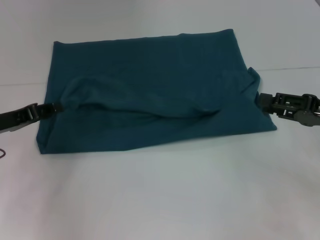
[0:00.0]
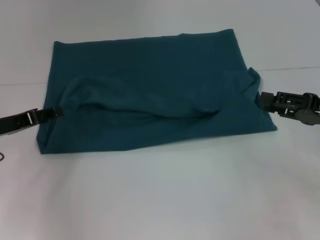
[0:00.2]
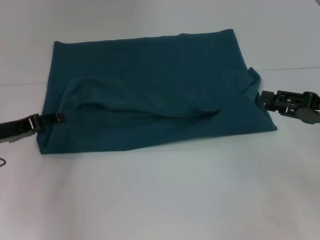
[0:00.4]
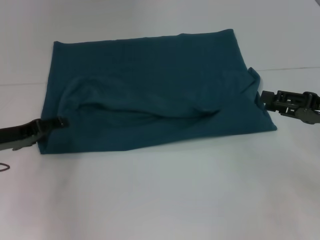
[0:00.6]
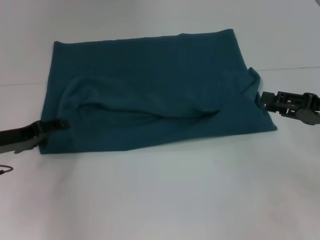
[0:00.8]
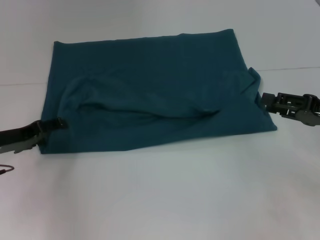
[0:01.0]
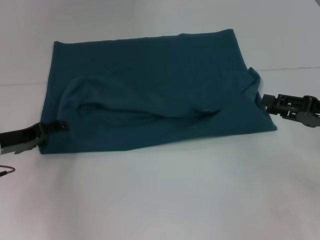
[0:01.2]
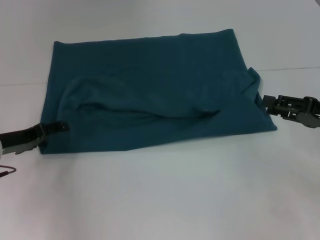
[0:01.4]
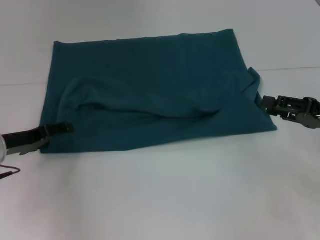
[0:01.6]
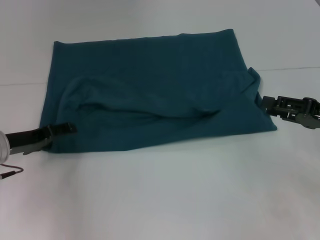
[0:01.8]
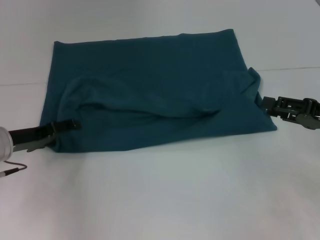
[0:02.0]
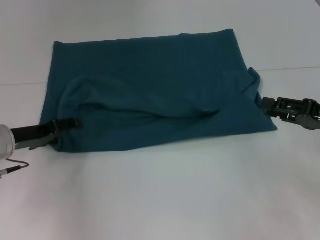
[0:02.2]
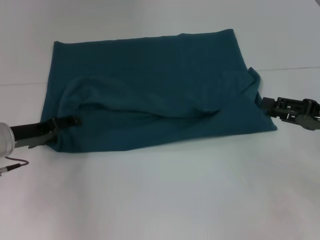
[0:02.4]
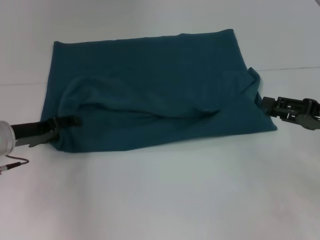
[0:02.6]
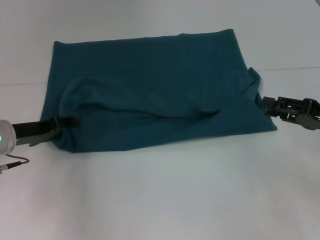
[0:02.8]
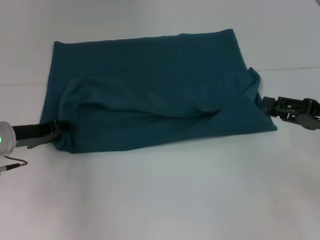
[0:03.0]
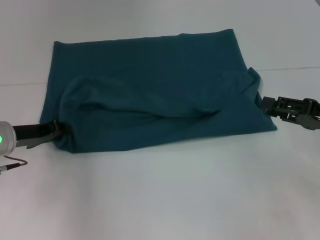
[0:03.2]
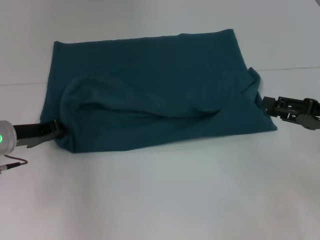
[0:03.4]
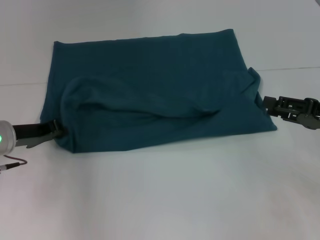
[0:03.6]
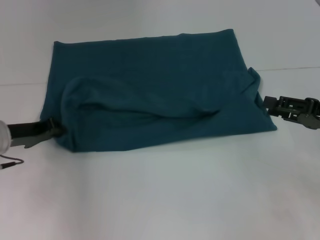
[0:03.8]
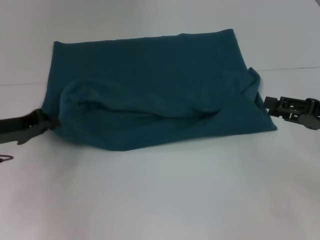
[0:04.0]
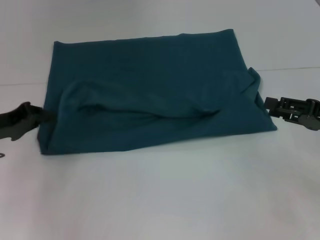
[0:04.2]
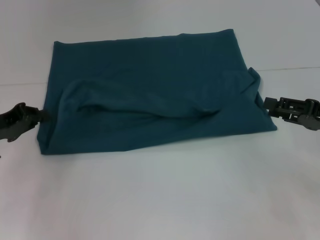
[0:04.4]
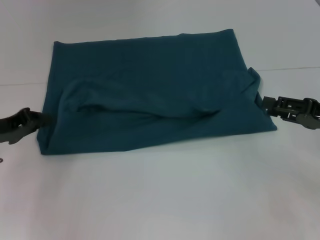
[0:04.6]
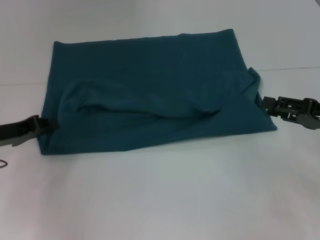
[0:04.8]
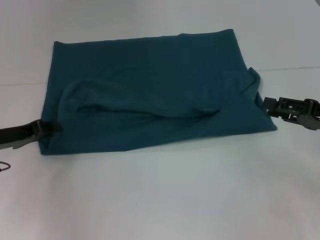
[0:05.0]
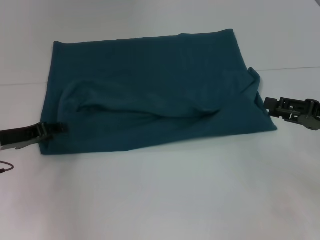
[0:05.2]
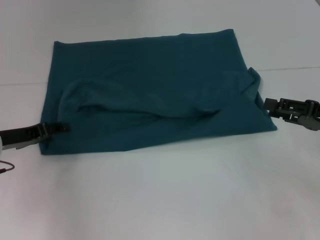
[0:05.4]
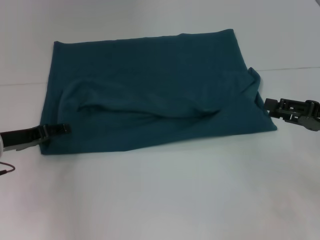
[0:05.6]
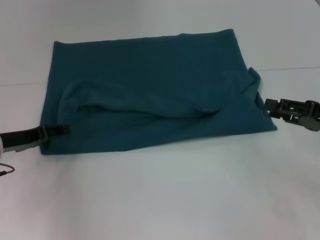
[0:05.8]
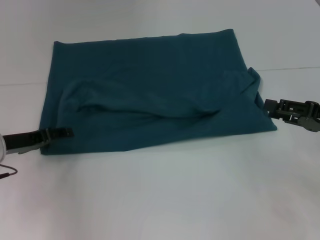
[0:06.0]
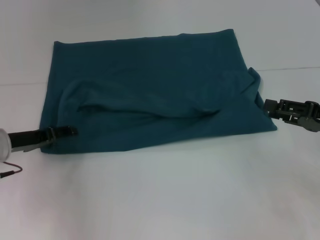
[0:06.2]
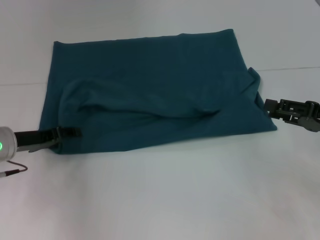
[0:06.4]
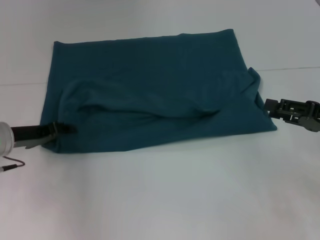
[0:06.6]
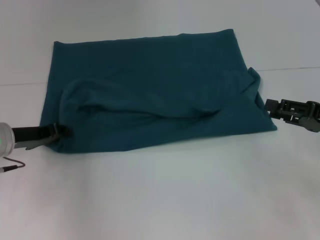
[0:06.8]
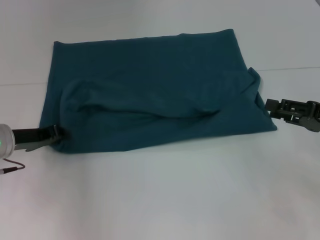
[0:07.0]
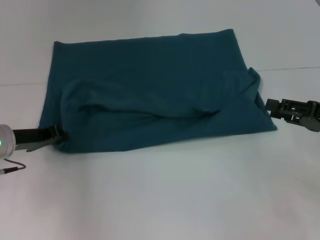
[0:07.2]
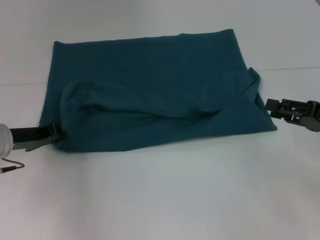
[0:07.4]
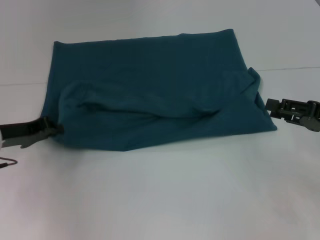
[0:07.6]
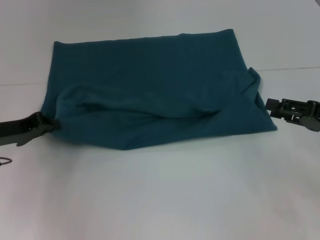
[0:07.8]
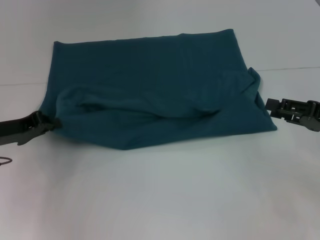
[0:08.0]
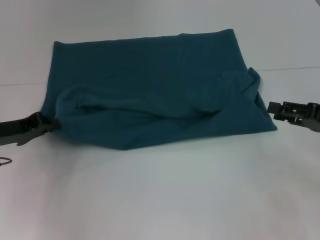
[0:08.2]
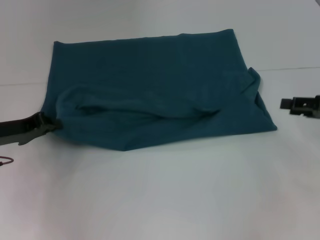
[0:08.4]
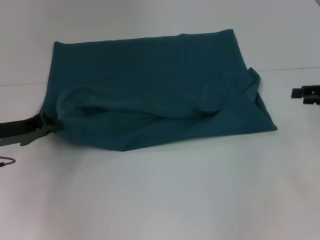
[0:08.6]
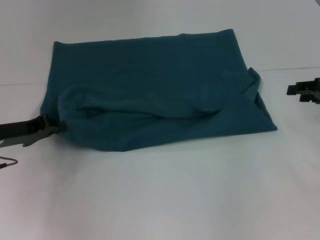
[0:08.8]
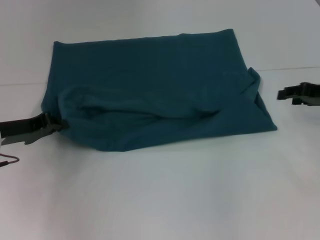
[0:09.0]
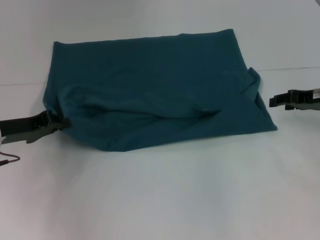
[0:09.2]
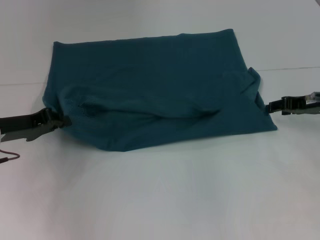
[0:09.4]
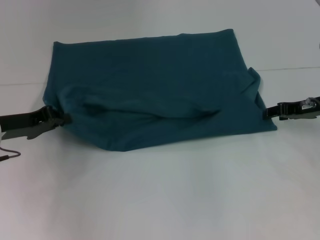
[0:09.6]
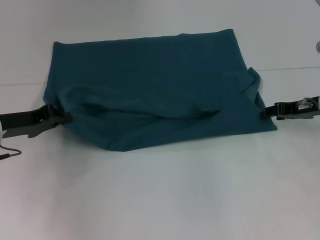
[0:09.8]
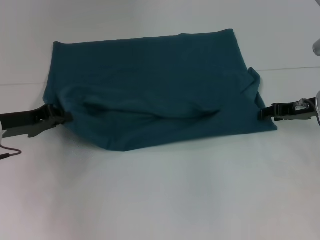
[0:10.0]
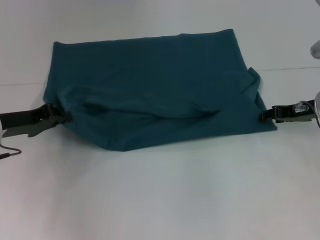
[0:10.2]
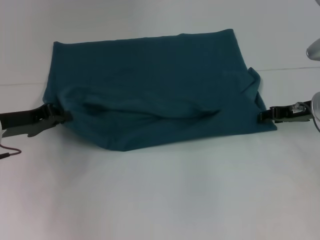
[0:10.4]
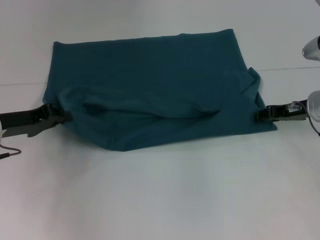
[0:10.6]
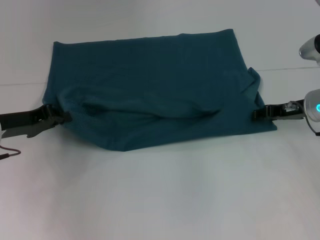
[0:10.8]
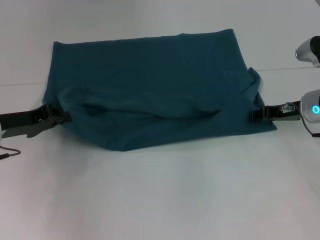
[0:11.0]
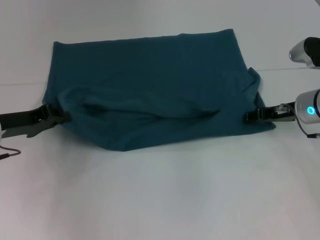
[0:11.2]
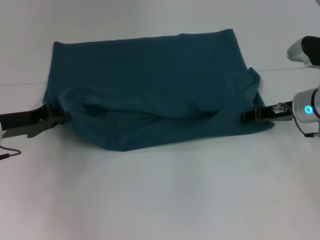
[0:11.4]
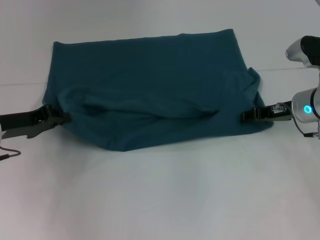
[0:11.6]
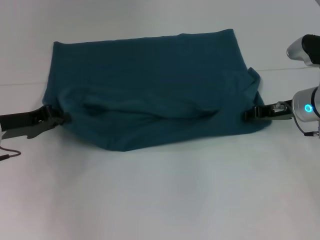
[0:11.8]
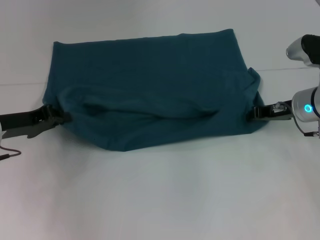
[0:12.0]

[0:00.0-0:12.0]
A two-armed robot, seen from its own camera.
0:00.0 to 0:01.6: The left gripper opens its fingers.
0:01.6 to 0:03.0: The grippers stay close to where they were, moving slightly.
0:03.0 to 0:04.4: The left gripper shifts by approximately 5 cm, and closes up.
0:04.4 to 0:06.0: The left gripper opens.
0:06.0 to 0:07.6: The left gripper closes.
0:07.6 to 0:09.0: The right gripper goes some 10 cm forward.
0:09.0 to 0:10.4: The right gripper heads to the left, covering roughly 5 cm.
0:10.4 to 0:12.0: The grippers make only small movements.

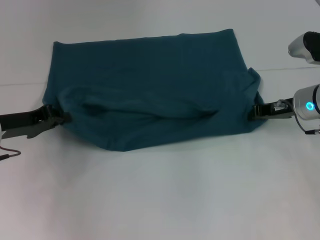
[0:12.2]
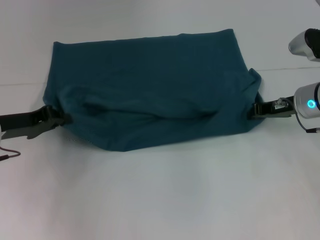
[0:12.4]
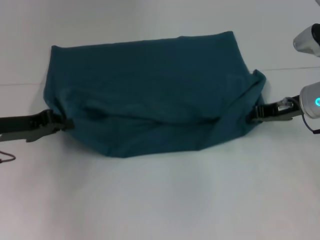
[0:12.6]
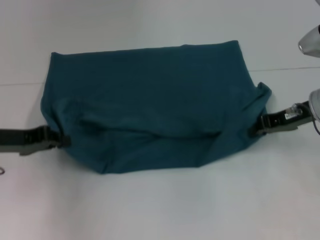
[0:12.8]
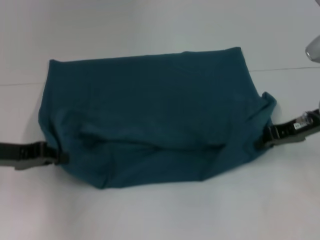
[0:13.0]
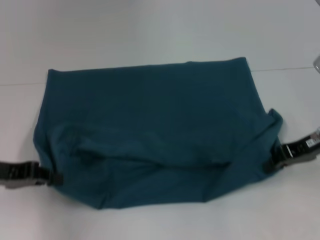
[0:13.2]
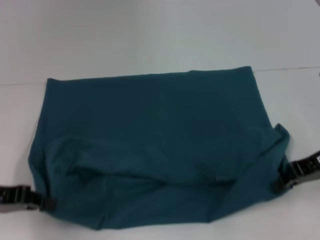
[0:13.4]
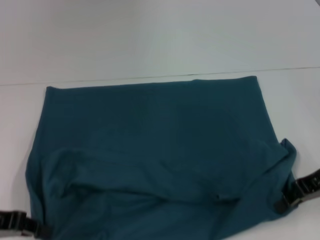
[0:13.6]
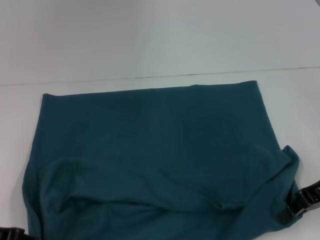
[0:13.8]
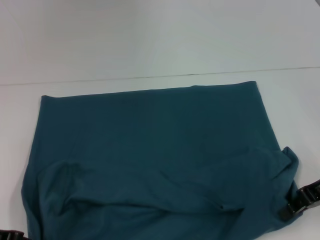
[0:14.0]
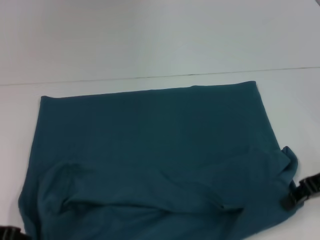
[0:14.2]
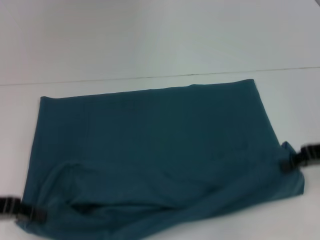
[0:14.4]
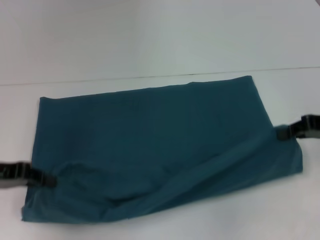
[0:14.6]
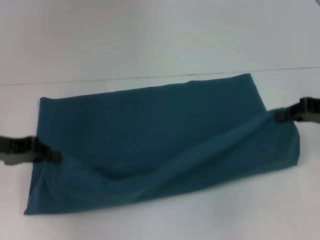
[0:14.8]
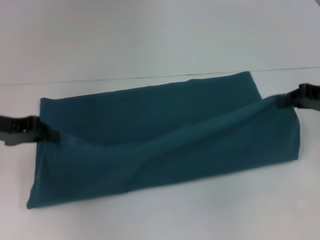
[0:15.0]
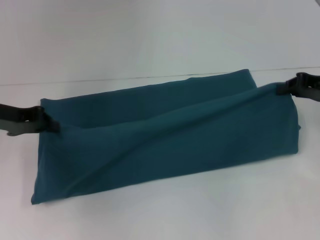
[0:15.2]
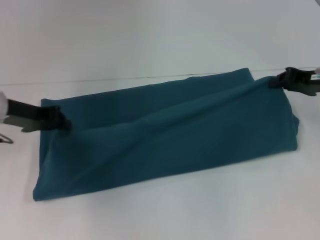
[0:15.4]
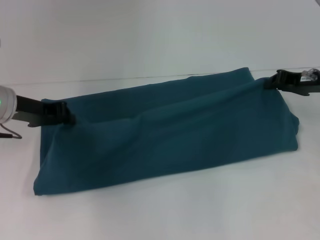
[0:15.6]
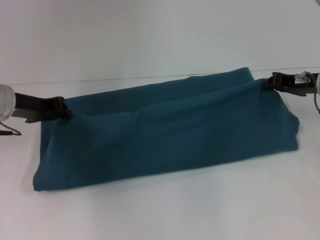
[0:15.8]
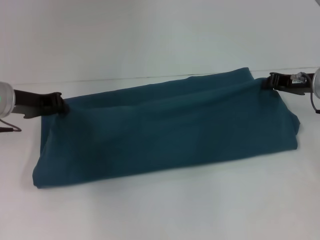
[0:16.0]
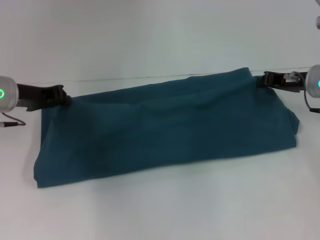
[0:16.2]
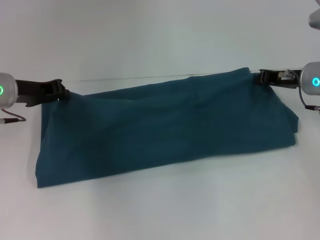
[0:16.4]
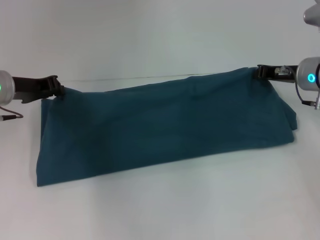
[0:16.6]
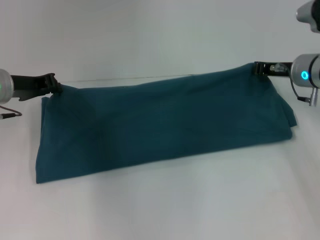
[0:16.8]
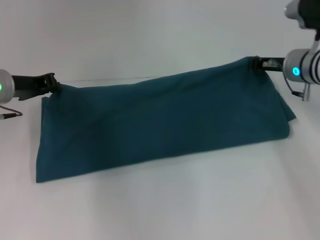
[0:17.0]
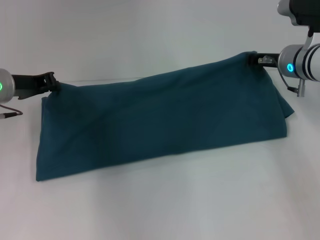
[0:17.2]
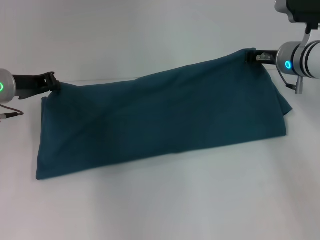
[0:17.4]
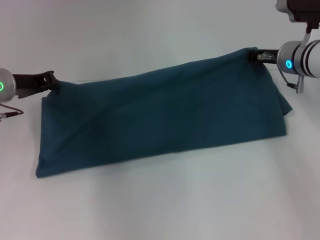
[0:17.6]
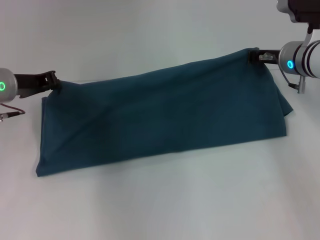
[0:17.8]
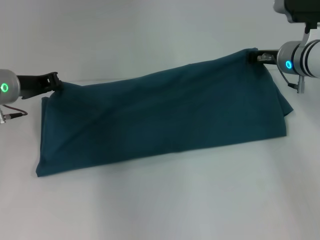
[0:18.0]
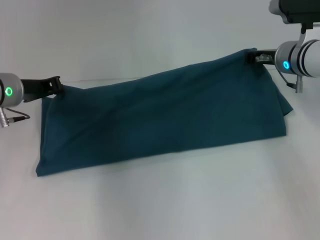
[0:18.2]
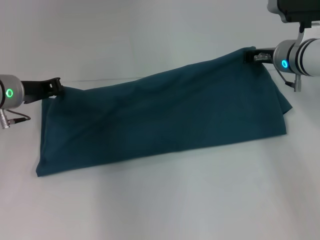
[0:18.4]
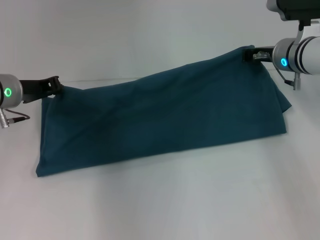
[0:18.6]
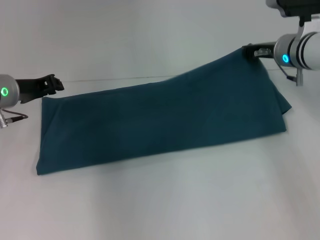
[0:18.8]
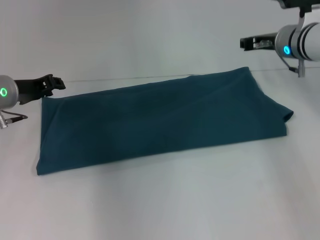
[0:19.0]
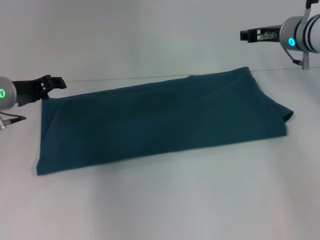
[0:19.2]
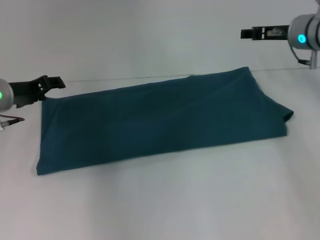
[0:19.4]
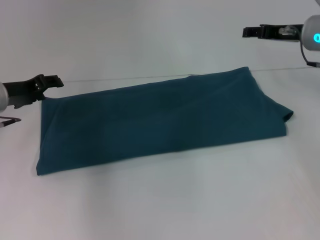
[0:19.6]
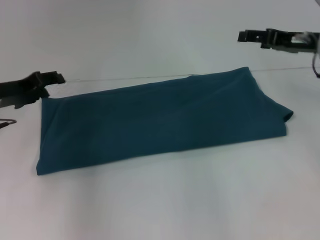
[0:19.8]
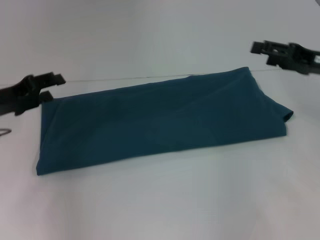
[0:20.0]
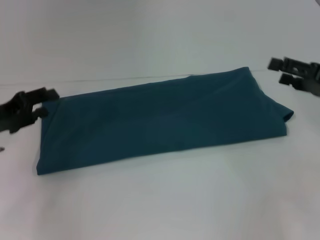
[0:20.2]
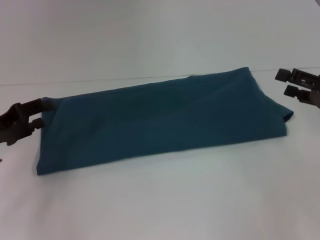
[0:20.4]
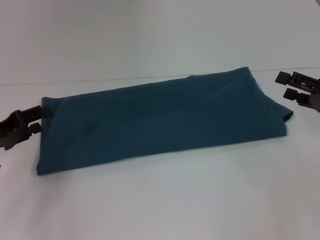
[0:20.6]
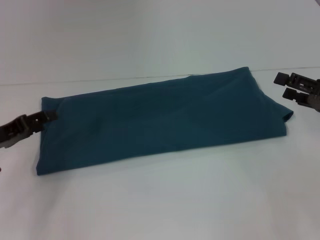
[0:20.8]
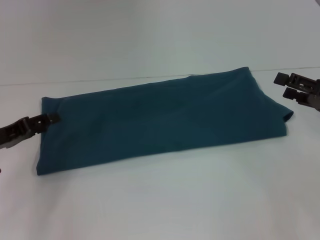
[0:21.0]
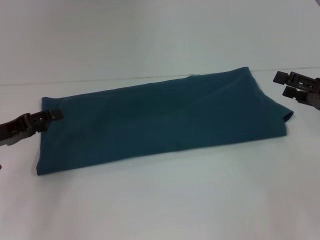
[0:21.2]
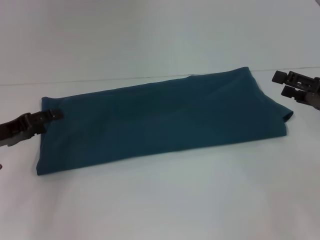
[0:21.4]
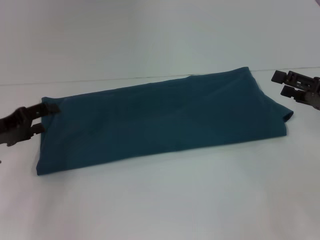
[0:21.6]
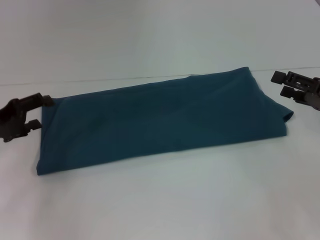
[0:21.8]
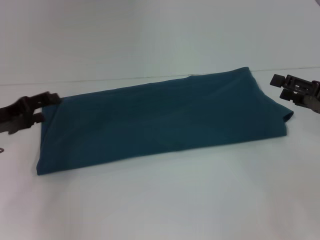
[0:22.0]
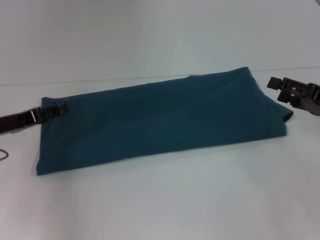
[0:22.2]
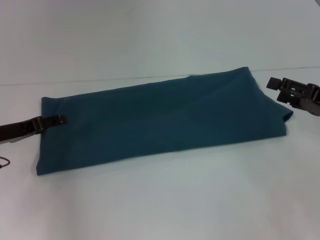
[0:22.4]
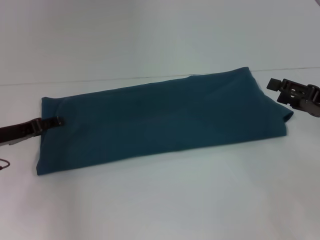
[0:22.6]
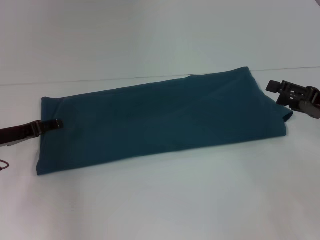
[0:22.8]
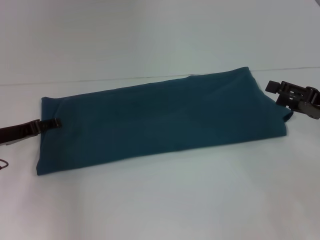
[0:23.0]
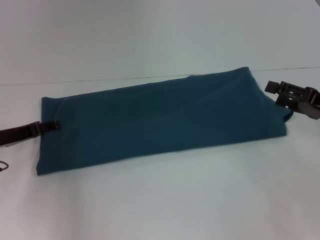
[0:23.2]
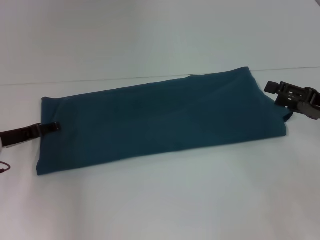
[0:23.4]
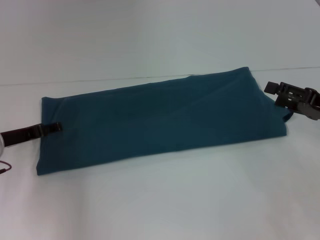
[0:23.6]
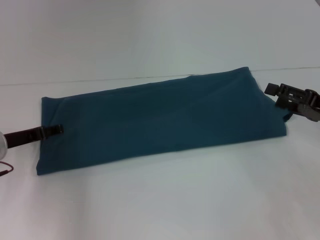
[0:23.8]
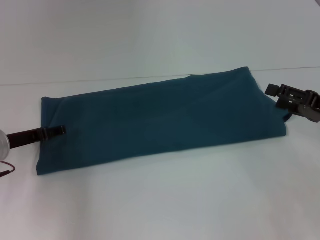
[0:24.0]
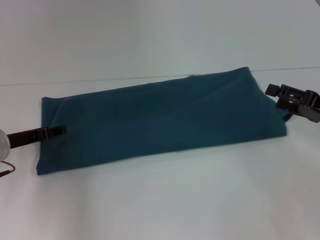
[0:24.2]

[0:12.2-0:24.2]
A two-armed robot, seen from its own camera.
Step, 0:13.6 to 0:18.8: Fold the clothes to the right.
0:12.2 to 0:13.8: The two grippers go roughly 10 cm backward.
0:13.8 to 0:15.2: The right gripper travels forward by about 5 cm. Meanwhile the left gripper is displaced forward and upward by about 15 cm.
0:15.2 to 0:16.6: The left gripper shifts by approximately 5 cm; the right gripper moves to the left and forward, approximately 10 cm.
0:16.6 to 0:18.2: The grippers make only small movements.
0:18.2 to 0:19.8: The left gripper opens up. The right gripper moves to the right, roughly 5 cm, and opens.
0:19.8 to 0:21.2: The right gripper heads backward, downward and to the right, covering roughly 15 cm. The left gripper goes approximately 5 cm backward.
0:21.2 to 0:22.6: The grippers make only small movements.
0:22.6 to 0:24.2: The grippers make only small movements.
